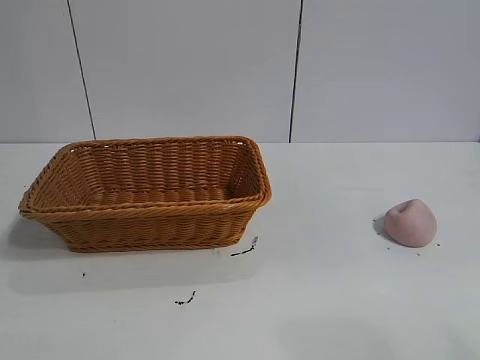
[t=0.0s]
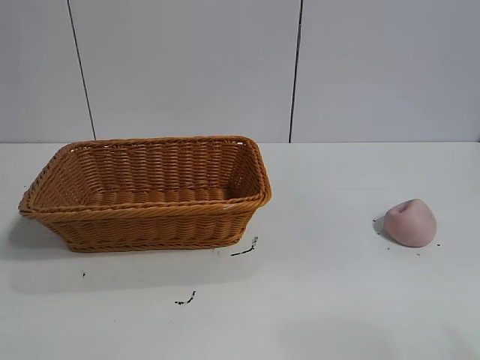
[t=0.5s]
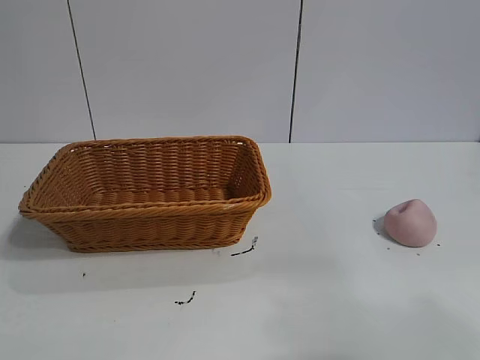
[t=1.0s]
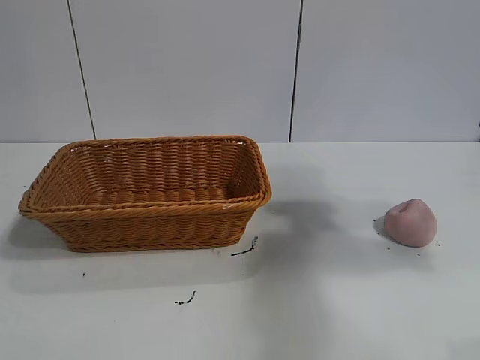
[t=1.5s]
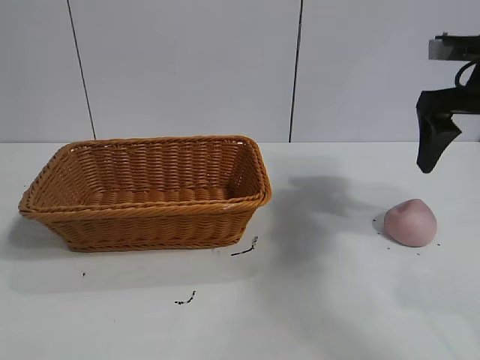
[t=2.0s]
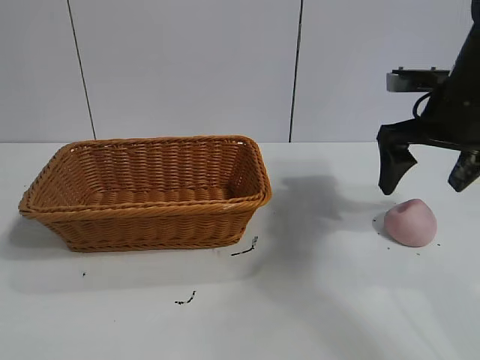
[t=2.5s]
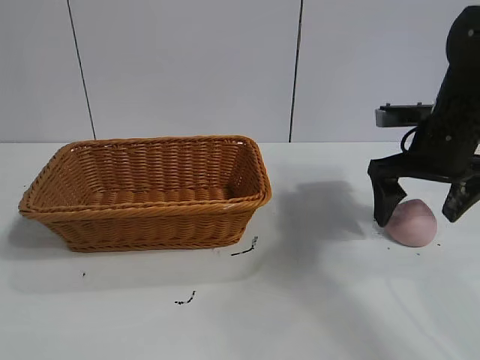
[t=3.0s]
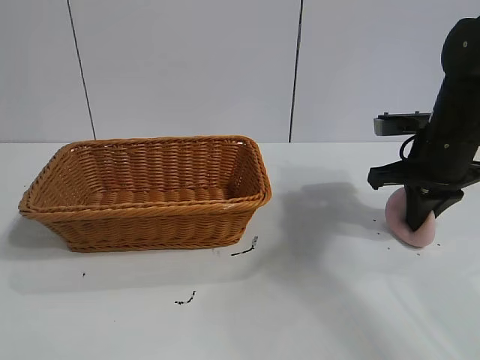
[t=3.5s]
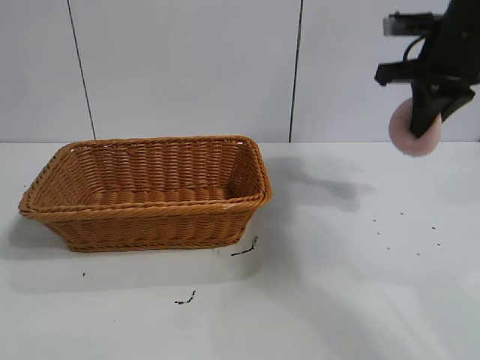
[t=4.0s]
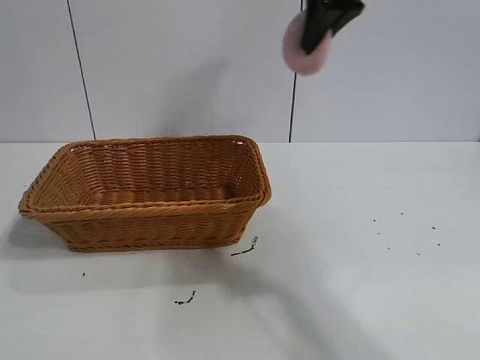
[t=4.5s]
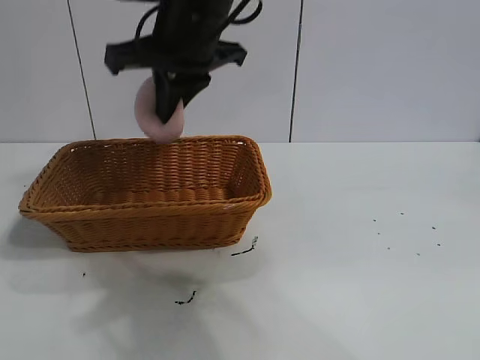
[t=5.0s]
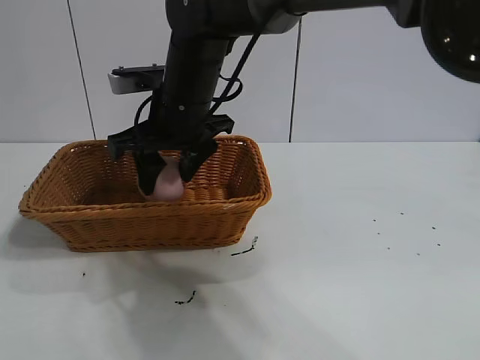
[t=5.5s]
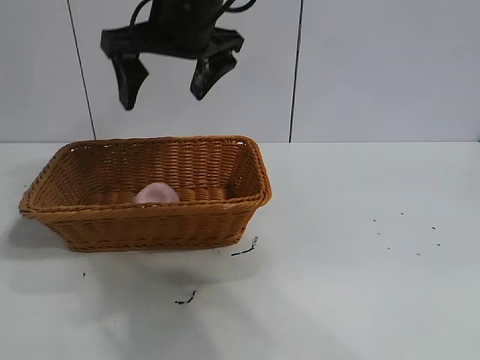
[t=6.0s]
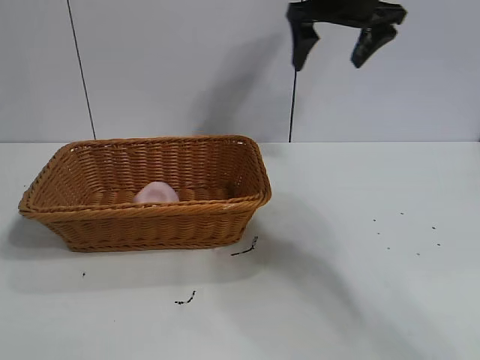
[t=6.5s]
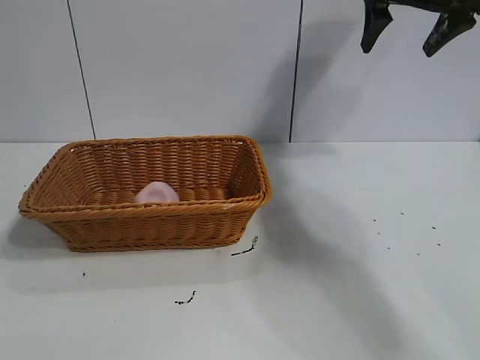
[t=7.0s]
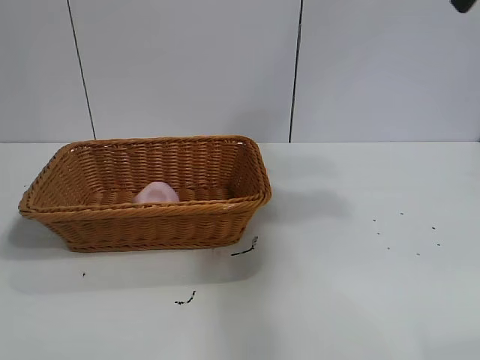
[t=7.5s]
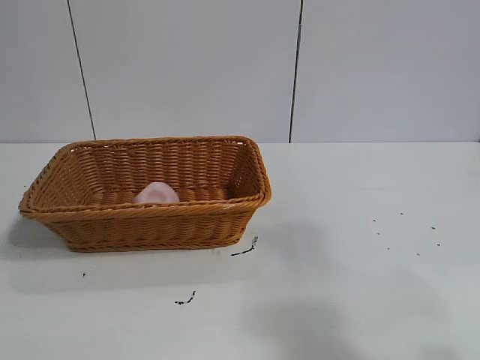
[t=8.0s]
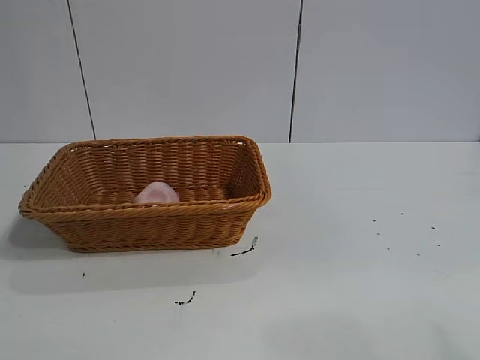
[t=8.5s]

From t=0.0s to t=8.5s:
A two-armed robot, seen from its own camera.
Task of the whole recording: pick up the peach and put it into the basket.
Step, from t=1.0s to t=3.0s: Grasp the peach with right gripper.
Step, from t=4.0s to t=5.5s: Place the peach in the basket with right gripper.

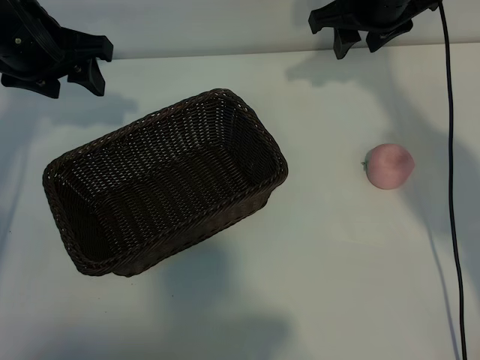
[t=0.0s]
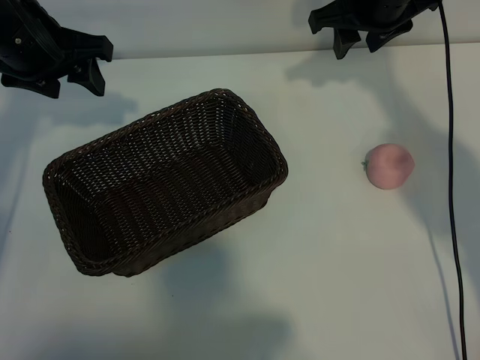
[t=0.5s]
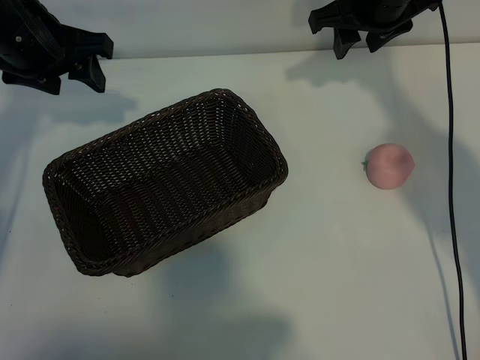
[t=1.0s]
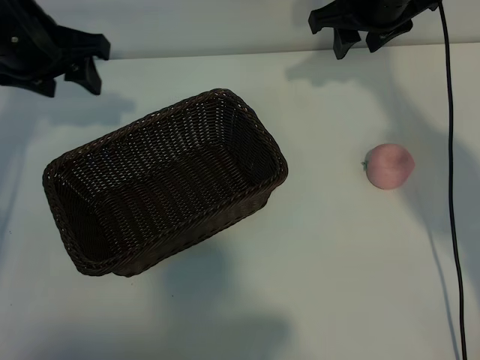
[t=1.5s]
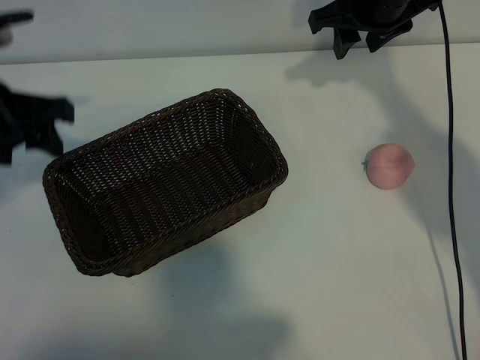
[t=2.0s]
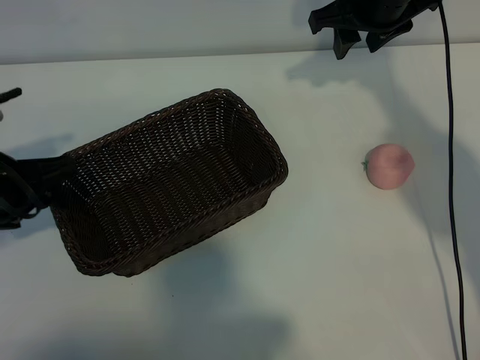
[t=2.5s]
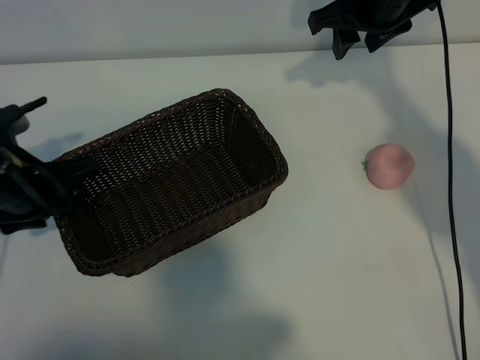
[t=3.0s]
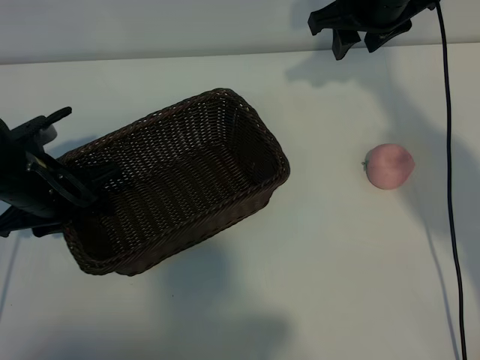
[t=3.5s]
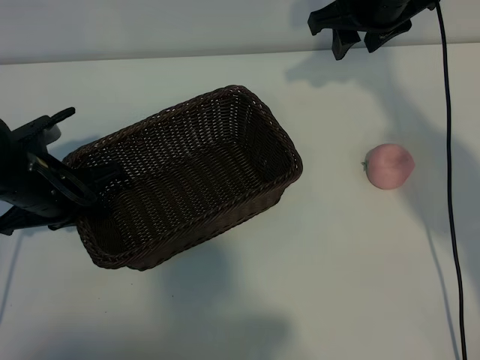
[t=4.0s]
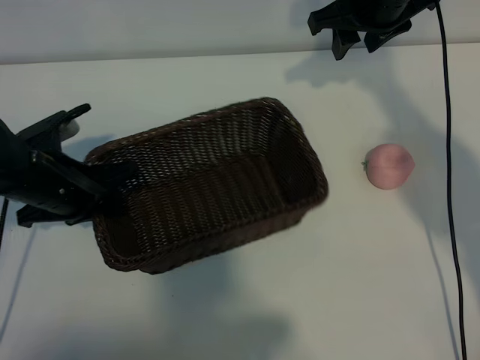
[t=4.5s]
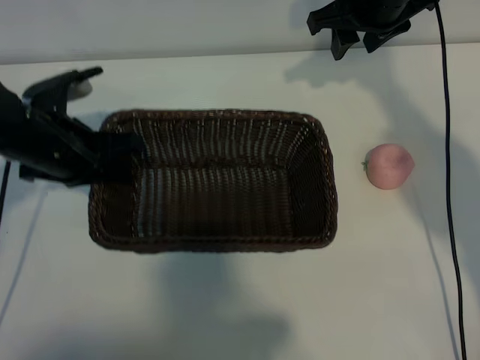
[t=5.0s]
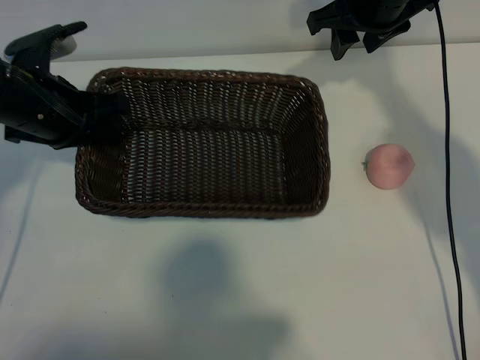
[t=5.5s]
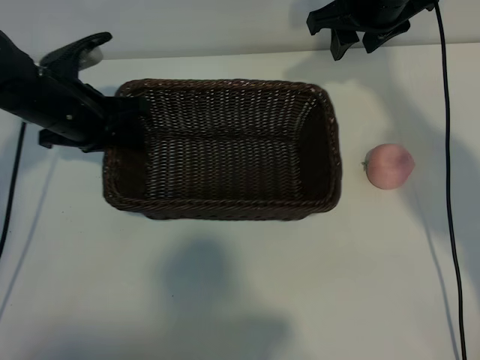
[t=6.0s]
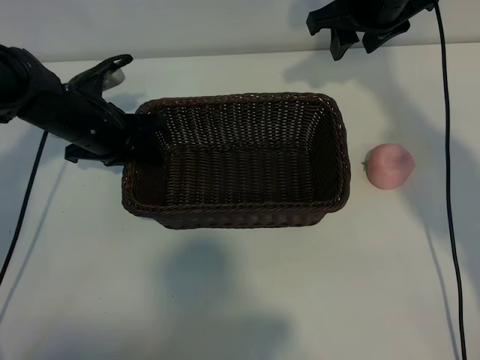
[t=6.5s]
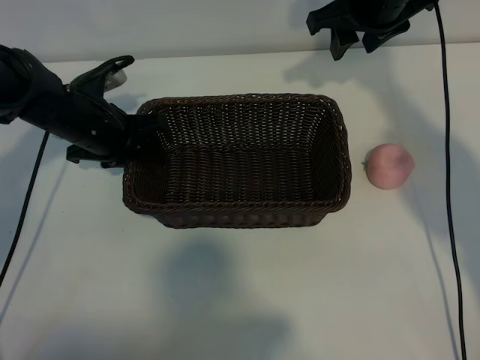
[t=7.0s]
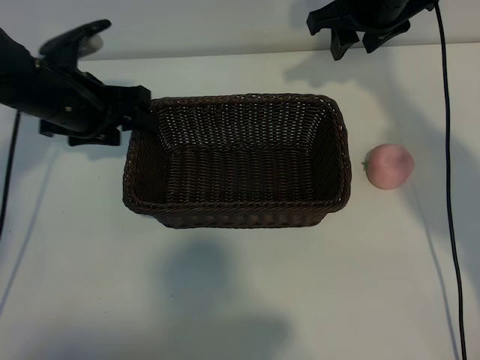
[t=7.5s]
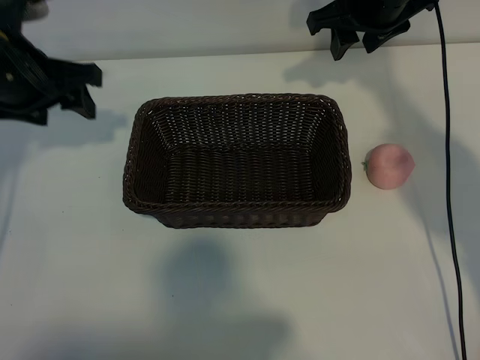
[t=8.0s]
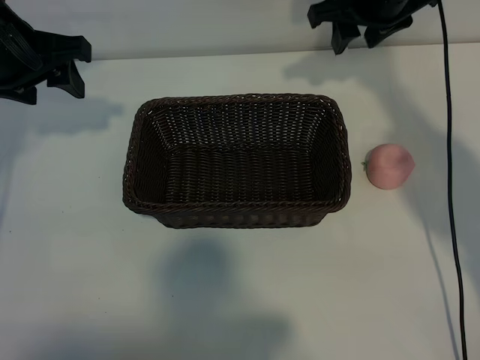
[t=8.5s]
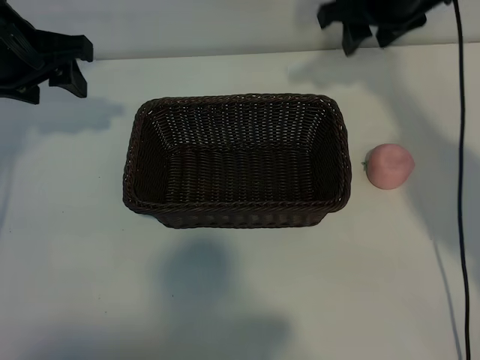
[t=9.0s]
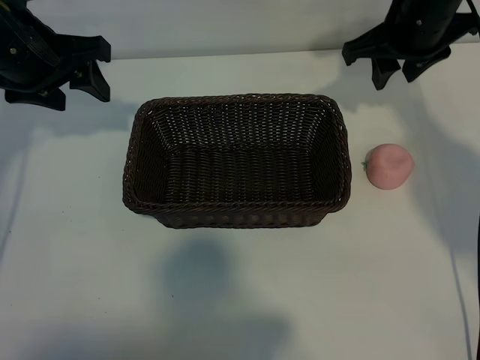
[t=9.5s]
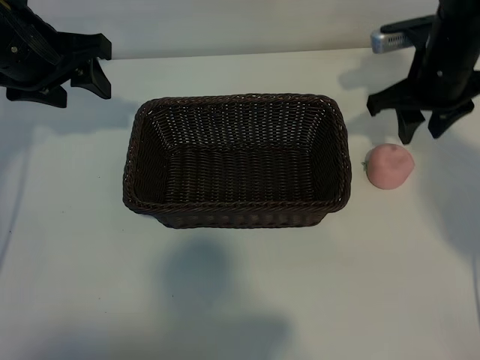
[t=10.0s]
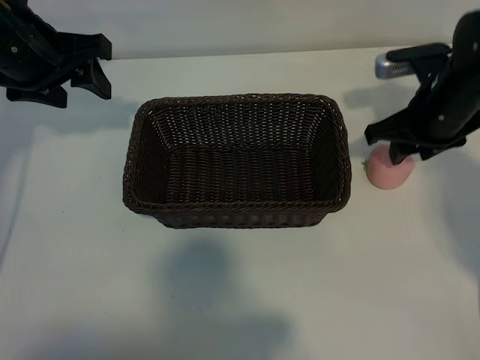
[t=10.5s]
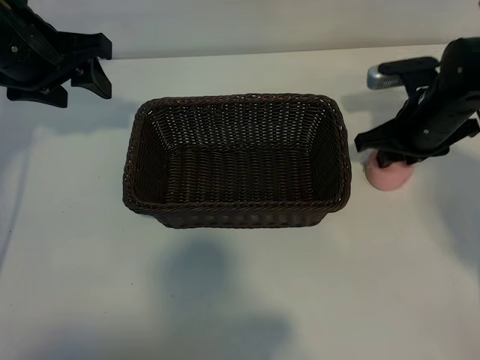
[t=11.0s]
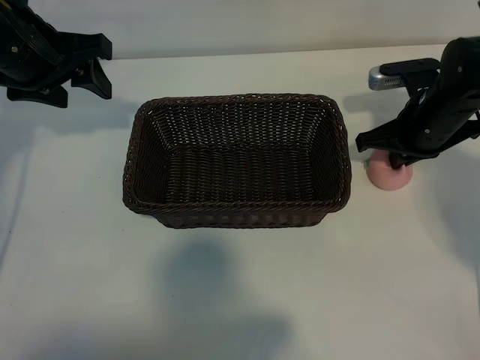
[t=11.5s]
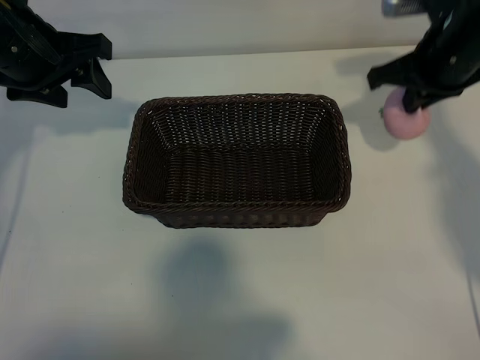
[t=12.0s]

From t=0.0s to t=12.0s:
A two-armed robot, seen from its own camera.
Task of the whole recording: pick up the peach and put it into the basket.
Step, from t=1.0s to t=4.0s: Grasp the basket with left gripper.
Step, from t=4.5s to t=7.0s: Place the basket in the center of view with left gripper.
Step, from t=7.5s to t=11.0s: Grasp the peach with right gripper.
